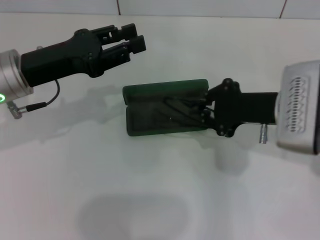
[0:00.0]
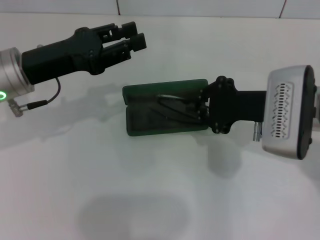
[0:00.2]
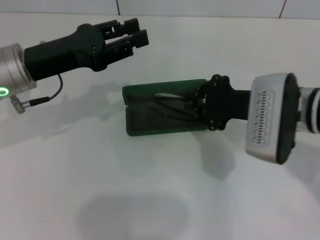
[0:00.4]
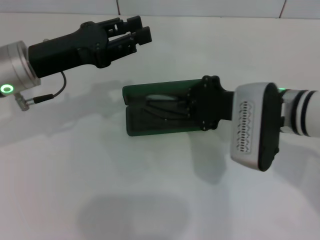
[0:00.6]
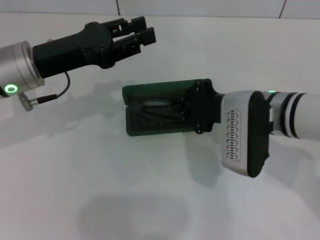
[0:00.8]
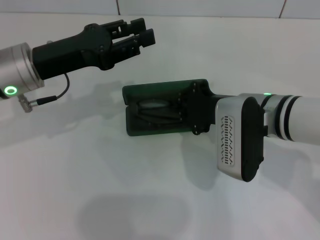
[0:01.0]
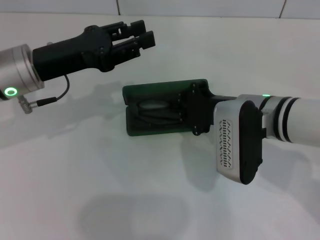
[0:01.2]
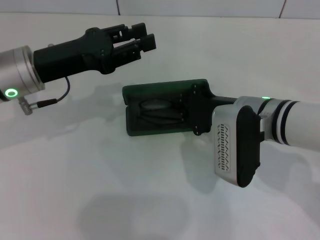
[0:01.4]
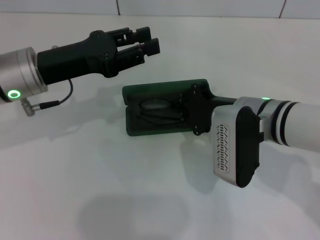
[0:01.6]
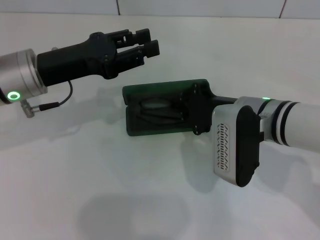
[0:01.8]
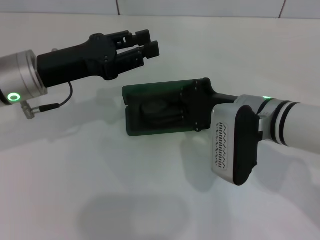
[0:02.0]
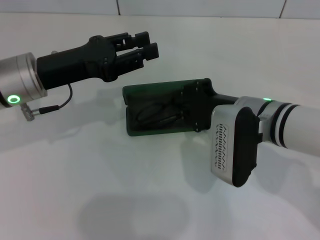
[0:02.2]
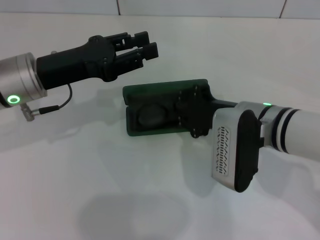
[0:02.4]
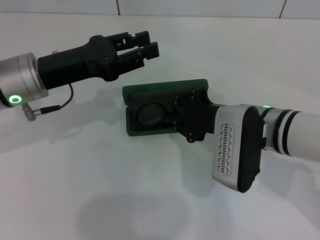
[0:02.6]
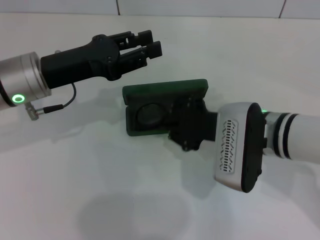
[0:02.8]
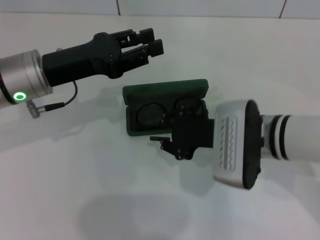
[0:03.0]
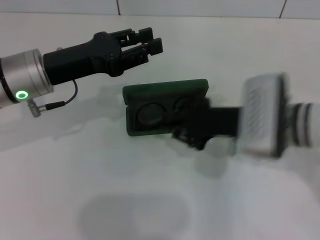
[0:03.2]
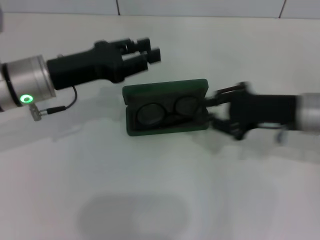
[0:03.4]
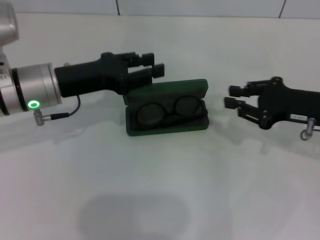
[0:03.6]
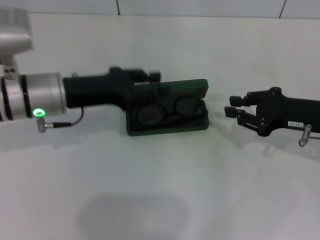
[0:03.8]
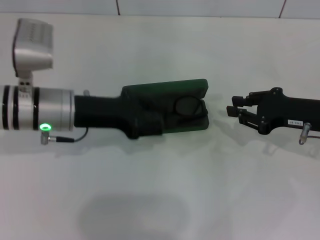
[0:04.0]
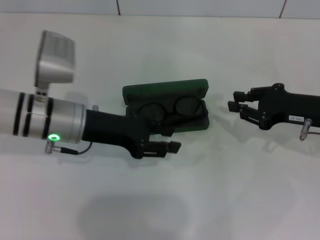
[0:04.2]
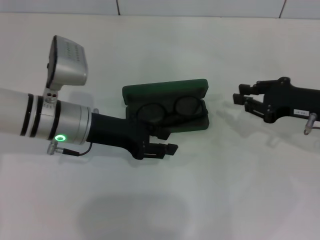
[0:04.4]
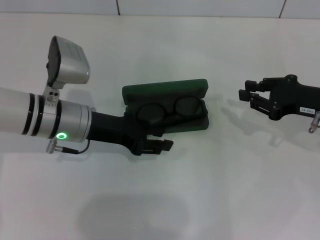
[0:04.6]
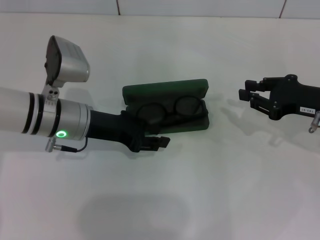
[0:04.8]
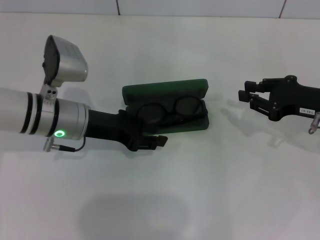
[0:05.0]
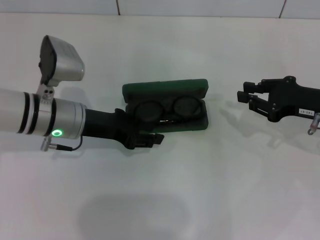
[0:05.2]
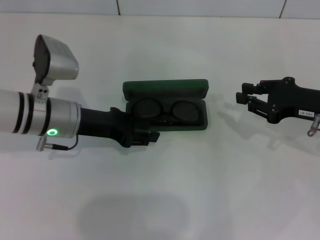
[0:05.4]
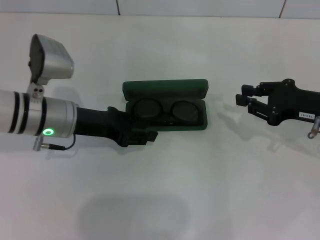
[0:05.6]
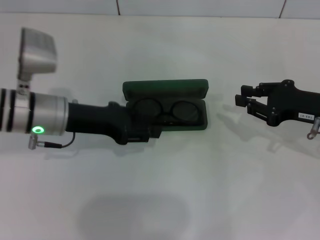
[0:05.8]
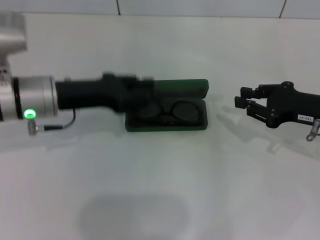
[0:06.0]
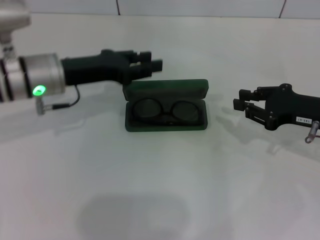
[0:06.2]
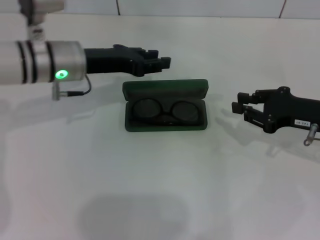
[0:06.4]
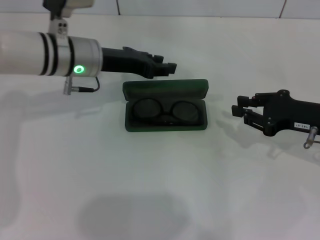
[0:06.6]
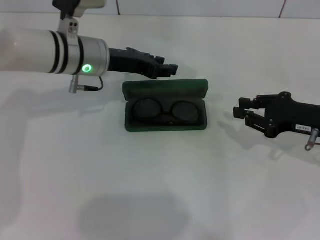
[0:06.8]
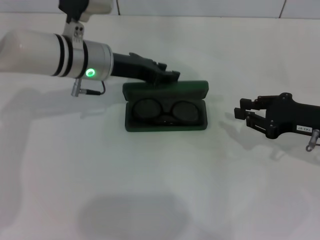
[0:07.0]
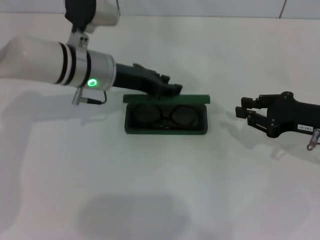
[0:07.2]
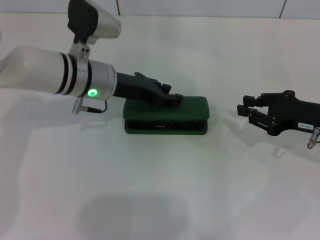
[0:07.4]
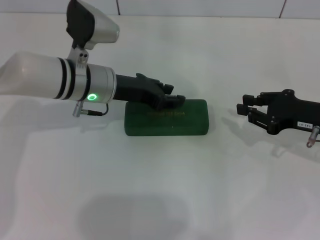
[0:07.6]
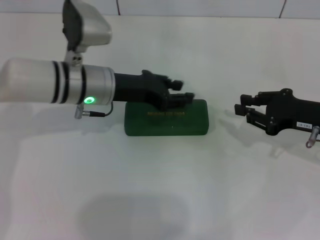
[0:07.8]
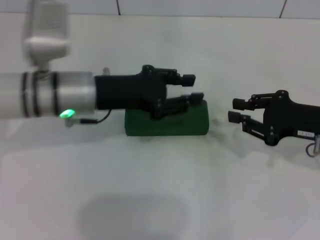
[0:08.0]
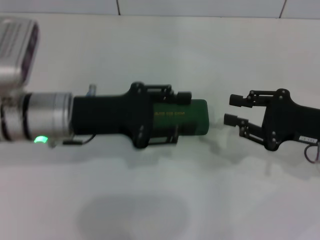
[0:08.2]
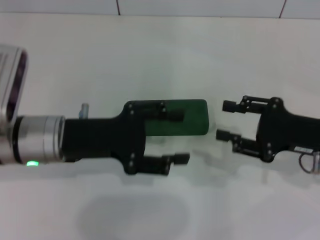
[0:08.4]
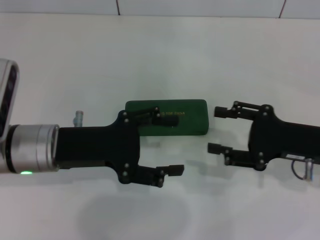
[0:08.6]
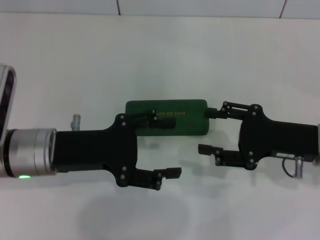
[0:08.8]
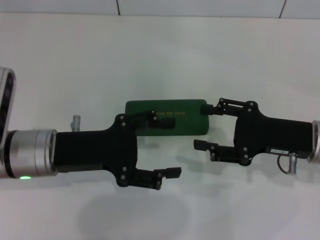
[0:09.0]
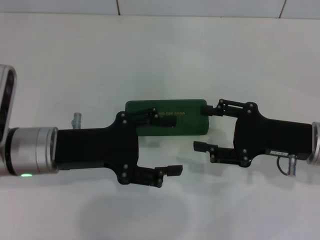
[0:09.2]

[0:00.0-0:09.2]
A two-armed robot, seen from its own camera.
Step, 0.0 to 2.2 s: Put the glasses into the case with your right hand.
Step, 2.6 to 7.4 s: Close the glasses case with your left hand.
0.0 to 1.6 s: The right gripper goes about 5 cm to the left.
3.0 to 4.6 s: The left gripper heads downward, covering roughly 5 cm, while the right gripper moves to the right, about 15 cm.
4.6 to 6.2 s: The left gripper shifts by some 5 cm.
6.2 to 7.6 s: The left gripper shifts roughly 5 cm to the right.
7.6 to 9.2 s: The right gripper changes place by approximately 5 cm, and opens its fingers. The left gripper travels backward and to the left by roughly 15 cm, and opens its fingers.

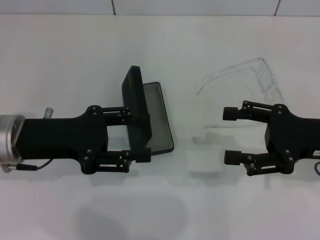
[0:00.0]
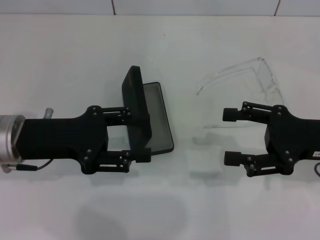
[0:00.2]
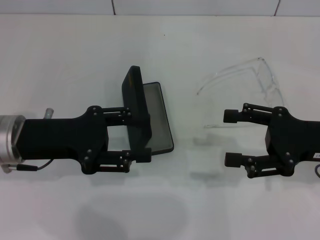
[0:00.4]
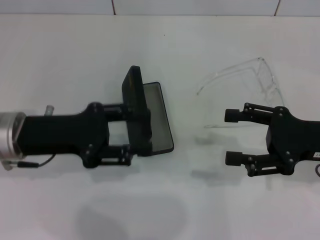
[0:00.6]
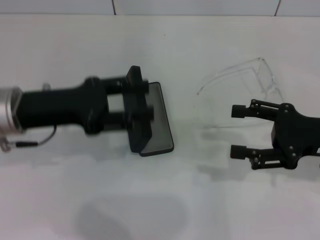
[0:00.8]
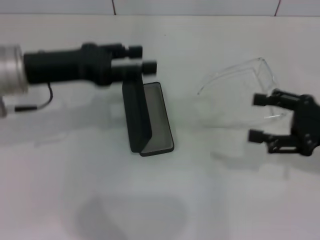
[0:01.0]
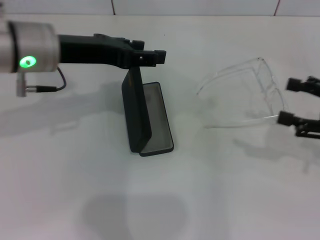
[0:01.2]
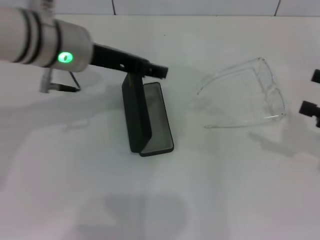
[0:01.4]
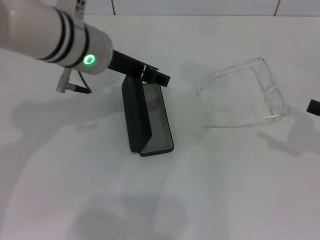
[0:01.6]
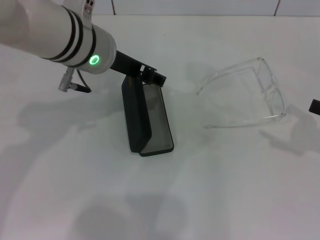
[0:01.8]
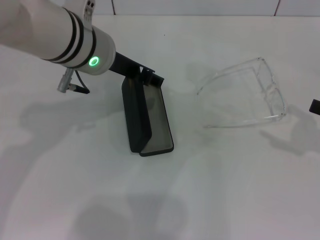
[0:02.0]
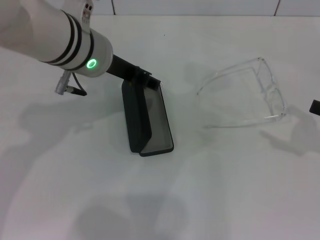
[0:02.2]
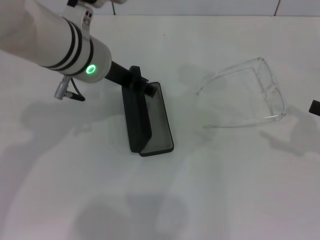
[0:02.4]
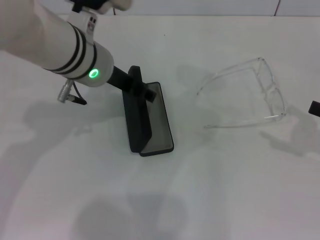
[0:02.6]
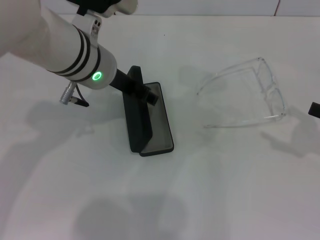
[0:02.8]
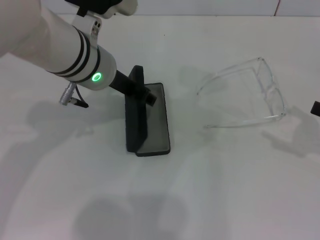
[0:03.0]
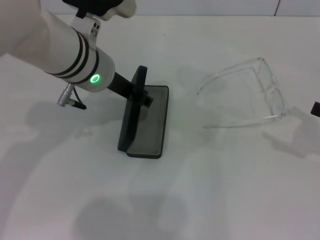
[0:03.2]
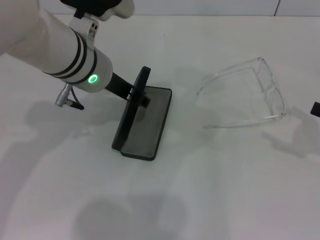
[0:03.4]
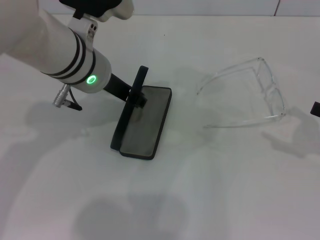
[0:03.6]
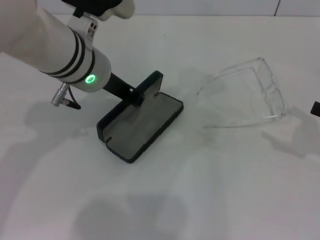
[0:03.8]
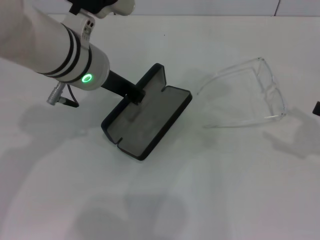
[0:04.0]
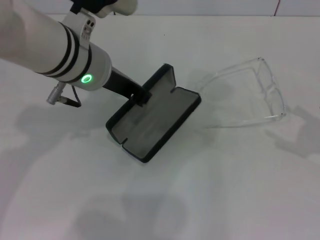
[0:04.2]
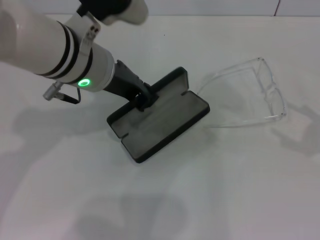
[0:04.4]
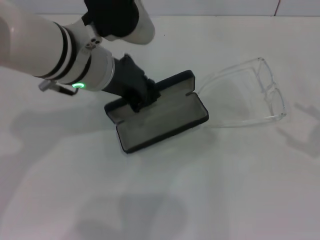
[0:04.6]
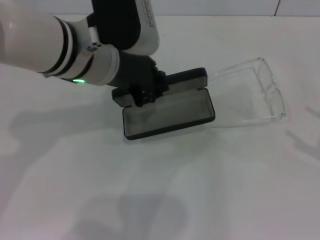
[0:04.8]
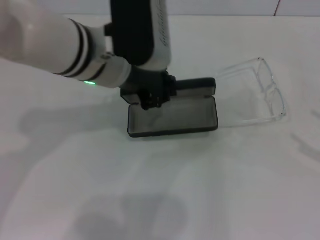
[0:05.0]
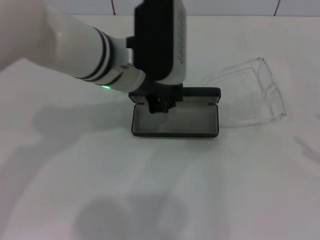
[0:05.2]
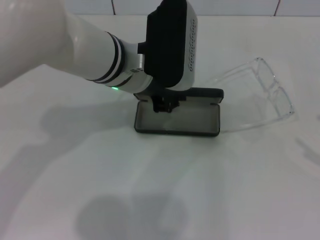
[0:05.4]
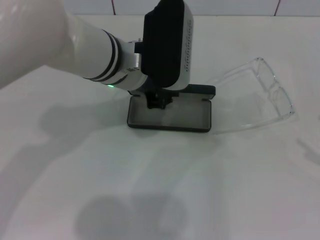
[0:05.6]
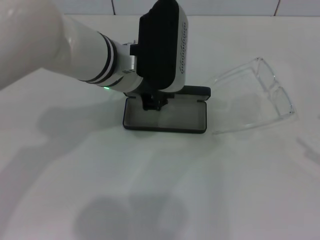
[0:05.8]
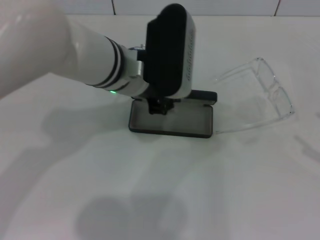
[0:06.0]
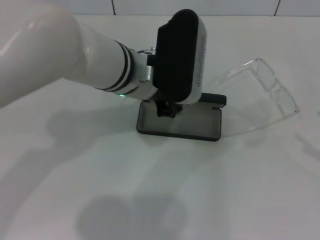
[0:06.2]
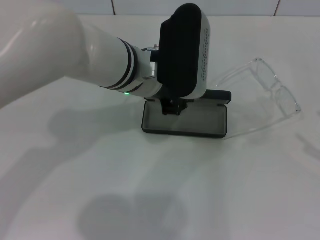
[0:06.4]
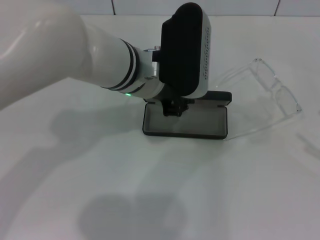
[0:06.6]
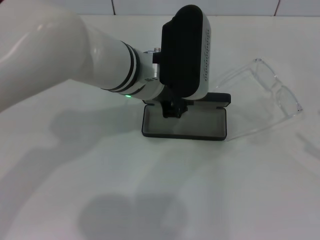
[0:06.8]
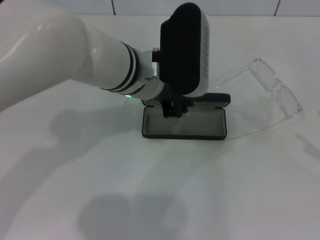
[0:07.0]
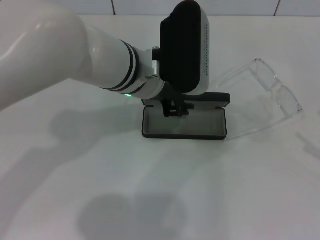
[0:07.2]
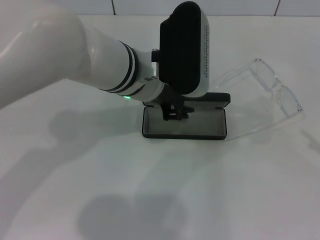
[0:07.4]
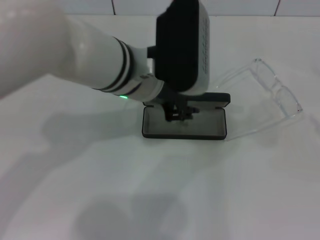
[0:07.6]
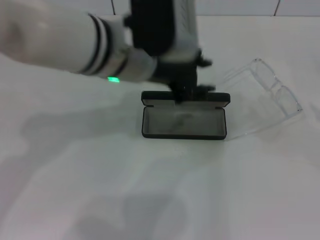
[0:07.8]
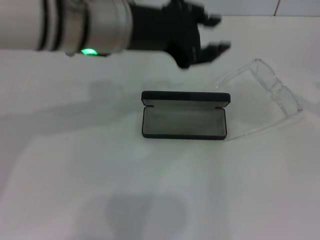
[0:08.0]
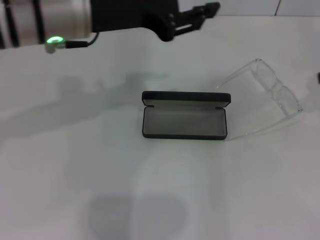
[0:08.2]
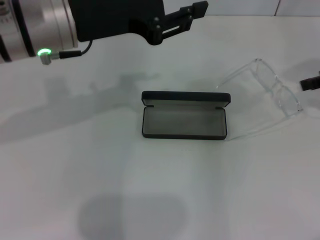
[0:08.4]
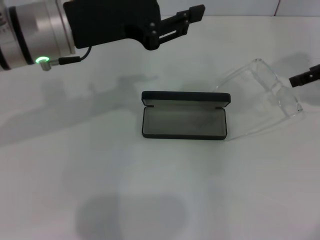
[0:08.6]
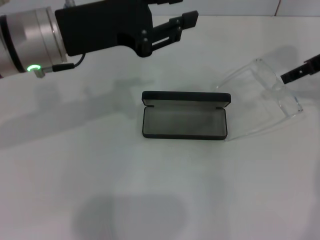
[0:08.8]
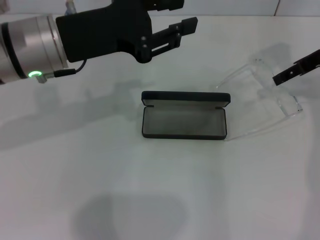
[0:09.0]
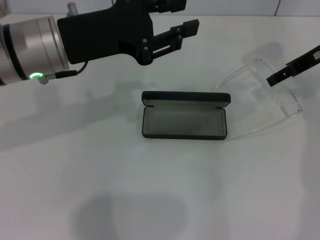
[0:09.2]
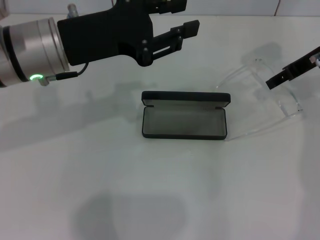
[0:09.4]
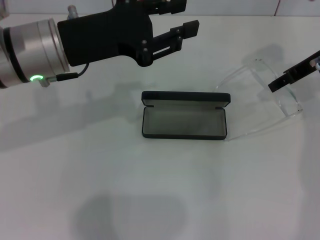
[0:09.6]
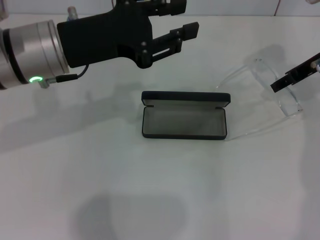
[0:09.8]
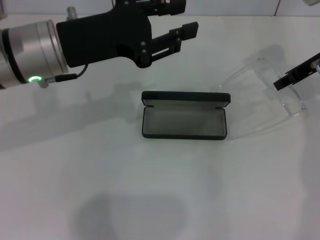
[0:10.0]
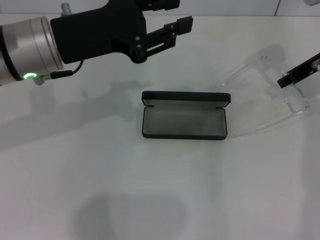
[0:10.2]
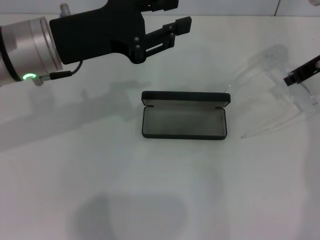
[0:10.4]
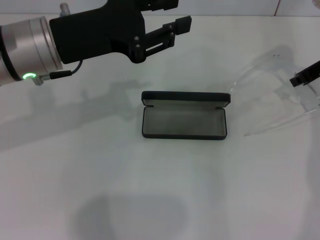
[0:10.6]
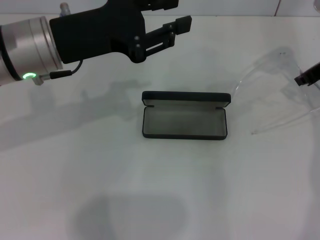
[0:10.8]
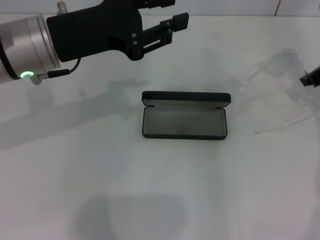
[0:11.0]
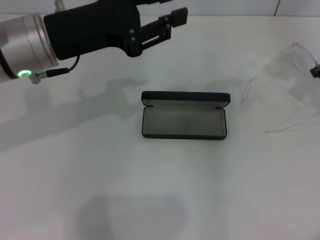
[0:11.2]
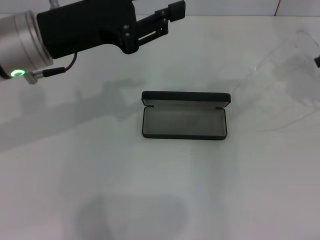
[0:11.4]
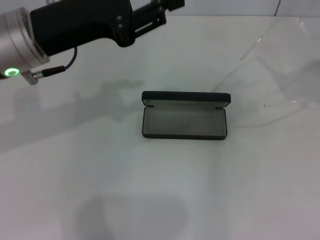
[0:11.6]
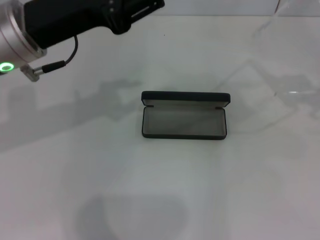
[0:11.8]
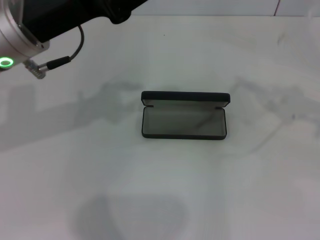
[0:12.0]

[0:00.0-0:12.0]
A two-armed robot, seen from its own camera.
Step, 0.0 to 3.6 s: Grab the glasses case with your left hand.
Step, 3.8 to 7.0 s: Place the glasses case in the center of the table with your left hand.
Step, 7.2 to 10.6 s: Grab the eyeglass frame with your right hand.
0.0 to 1.6 s: The left gripper heads to the right, forward and upward, covering approximately 15 cm; the right gripper moves to the right, some 10 cm.
1.6 to 3.0 s: The grippers make only small movements.
3.0 to 4.4 s: The left gripper closes.
4.4 to 6.0 s: The left gripper ends up roughly 5 cm from where it was. The right gripper travels backward by some 5 cm.
6.0 to 7.6 s: The grippers make only small movements.
7.6 to 9.0 s: The left gripper heads to the left, covering approximately 10 cm. Meanwhile the right gripper goes approximately 25 cm forward, to the left and upward.
9.0 to 10.4 s: The right gripper closes up.
10.4 to 12.0 s: The right gripper travels backward, to the right and upward by roughly 20 cm.

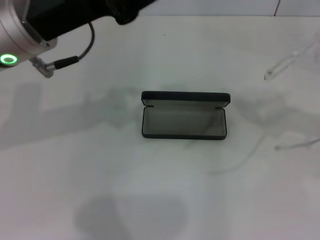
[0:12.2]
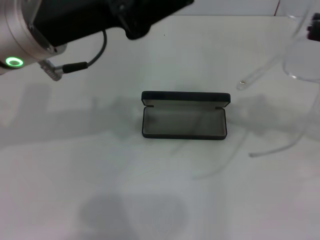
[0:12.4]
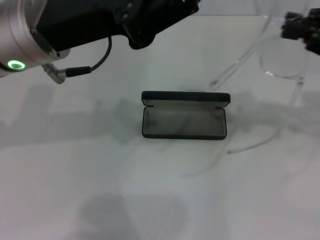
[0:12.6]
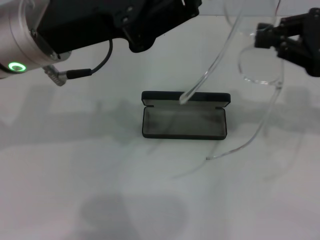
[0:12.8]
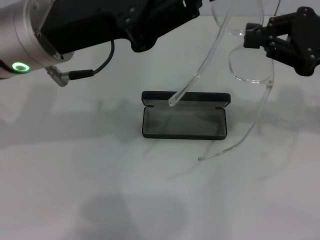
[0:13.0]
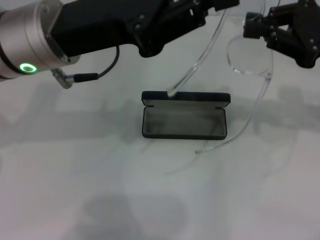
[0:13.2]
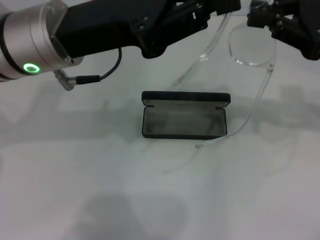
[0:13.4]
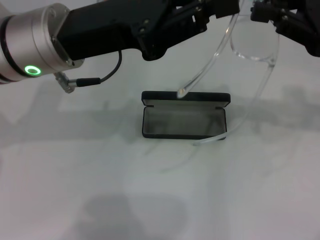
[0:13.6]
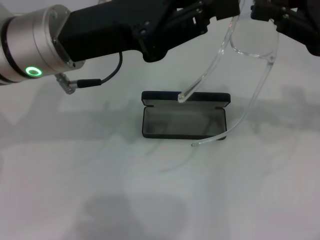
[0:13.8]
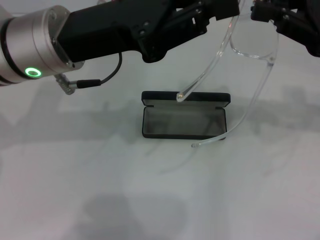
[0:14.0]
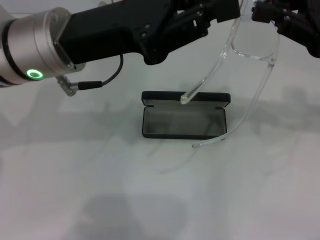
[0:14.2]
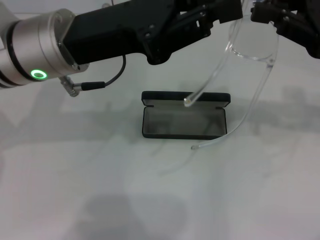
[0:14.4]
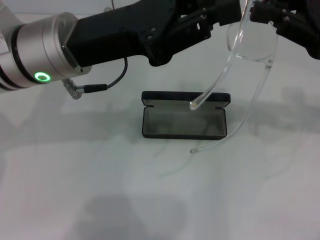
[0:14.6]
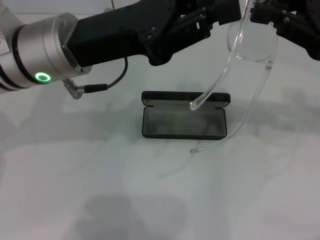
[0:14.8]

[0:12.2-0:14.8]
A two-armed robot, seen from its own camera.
12.2 to 13.4 s: The right gripper shifts approximately 10 cm to the left.
13.4 to 14.8 s: The grippers make only small movements.
